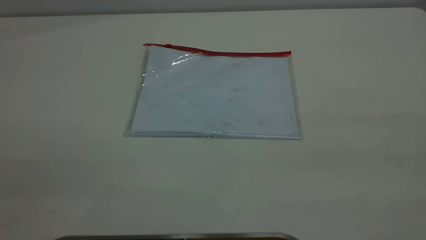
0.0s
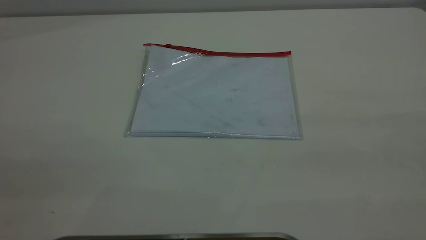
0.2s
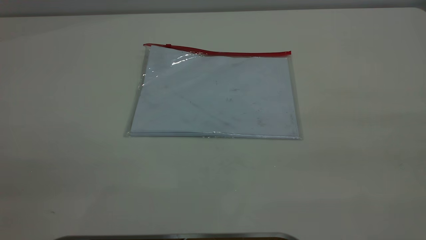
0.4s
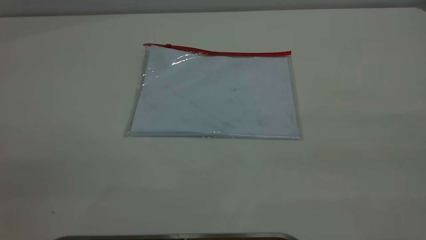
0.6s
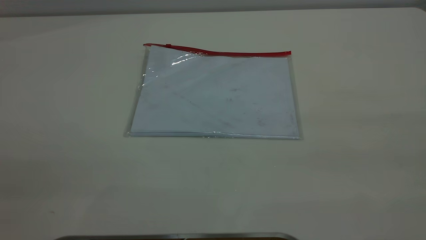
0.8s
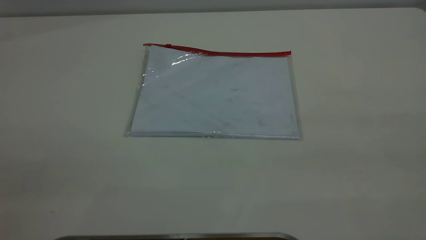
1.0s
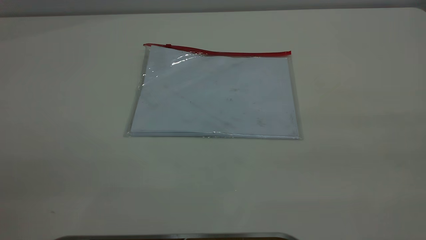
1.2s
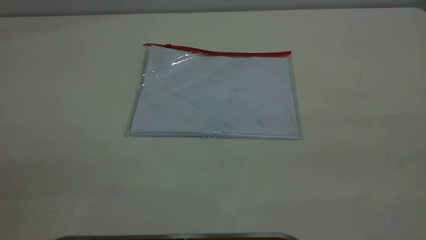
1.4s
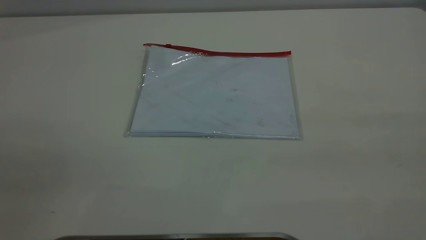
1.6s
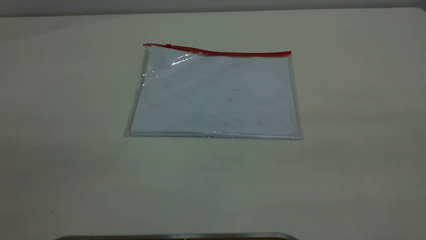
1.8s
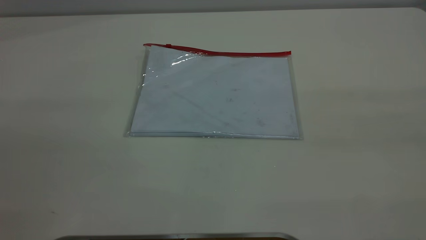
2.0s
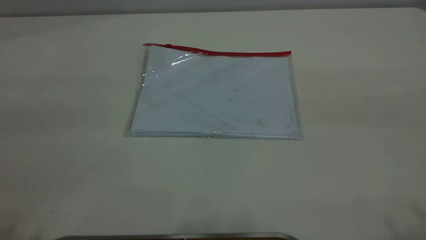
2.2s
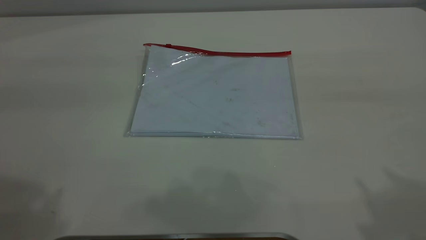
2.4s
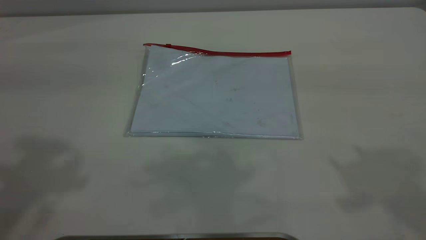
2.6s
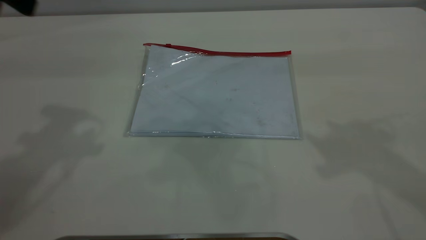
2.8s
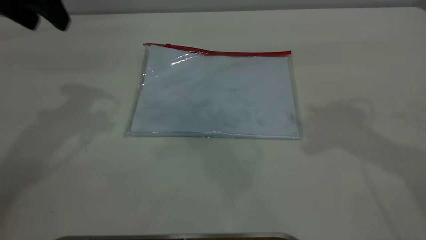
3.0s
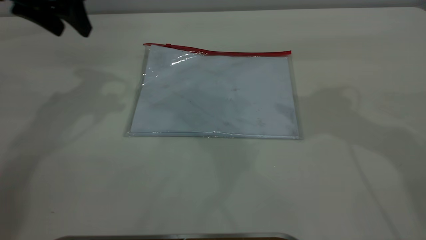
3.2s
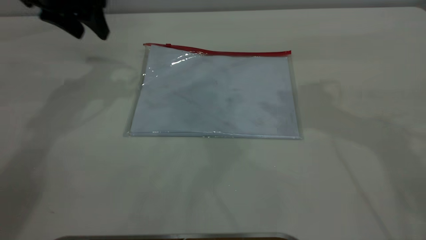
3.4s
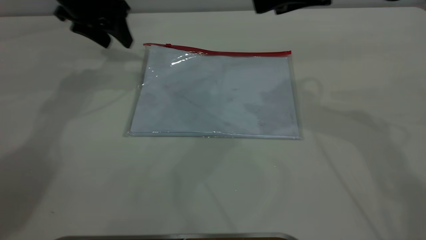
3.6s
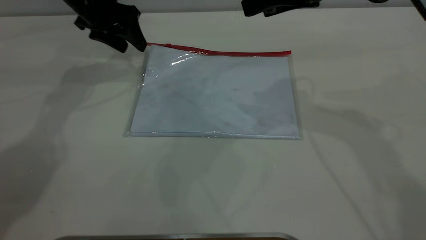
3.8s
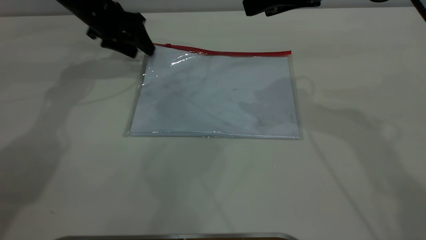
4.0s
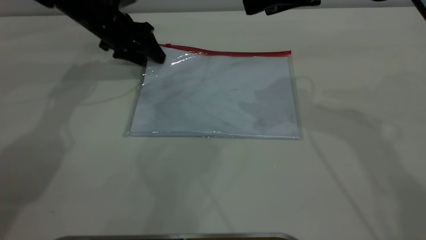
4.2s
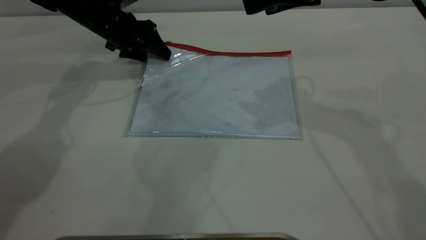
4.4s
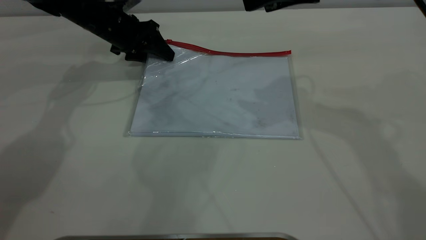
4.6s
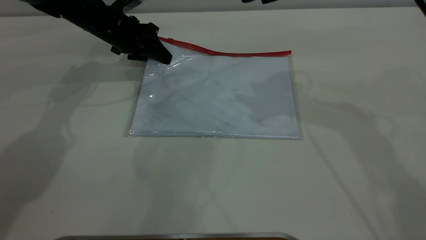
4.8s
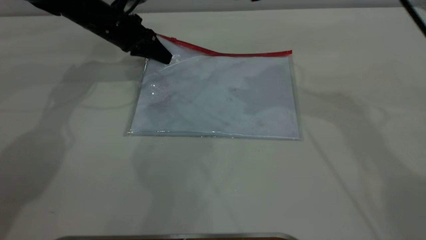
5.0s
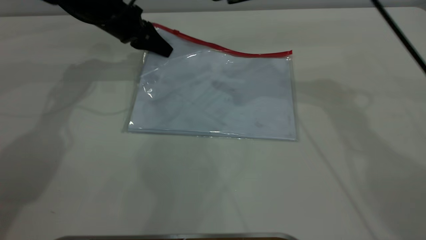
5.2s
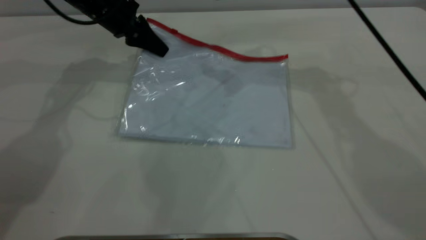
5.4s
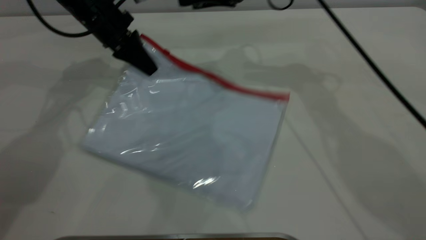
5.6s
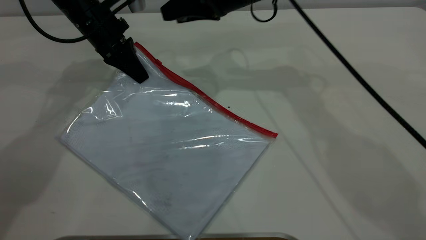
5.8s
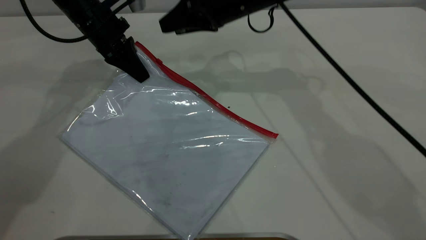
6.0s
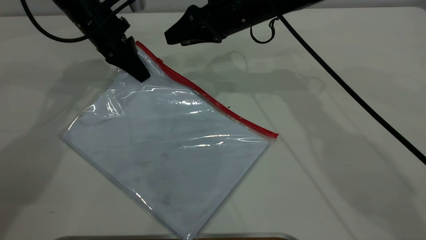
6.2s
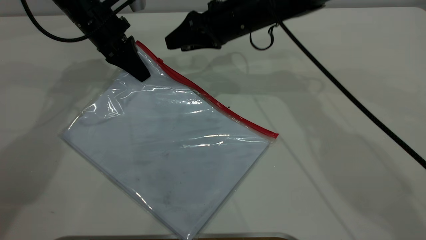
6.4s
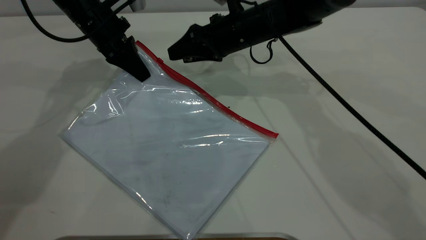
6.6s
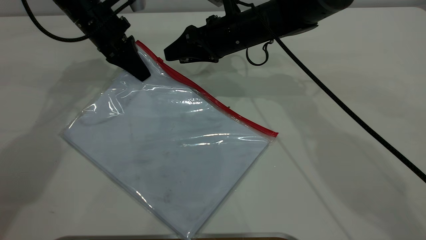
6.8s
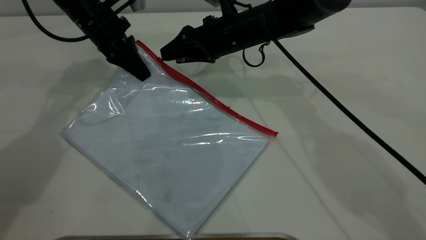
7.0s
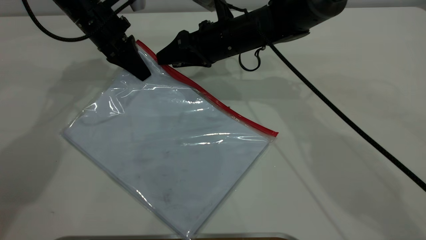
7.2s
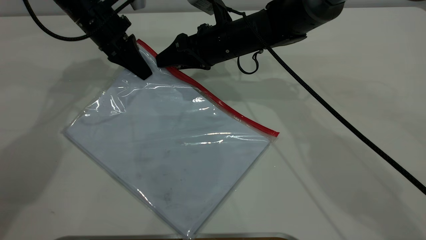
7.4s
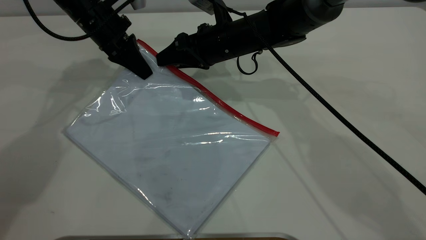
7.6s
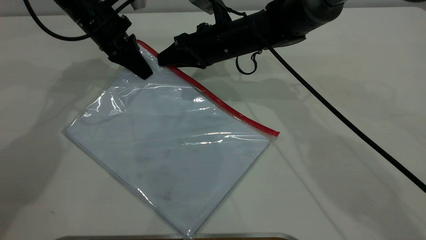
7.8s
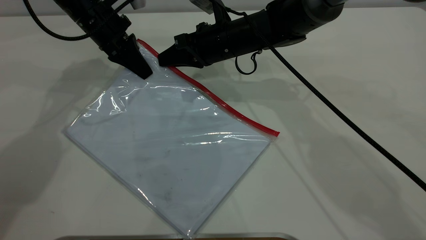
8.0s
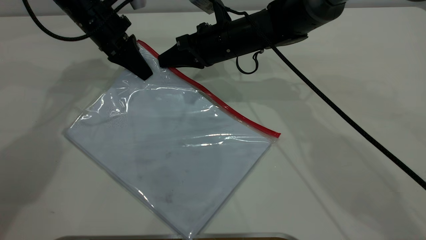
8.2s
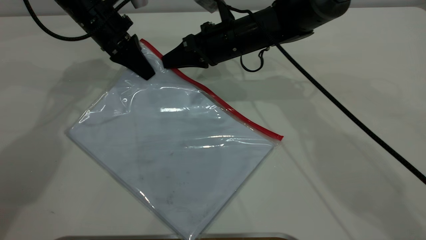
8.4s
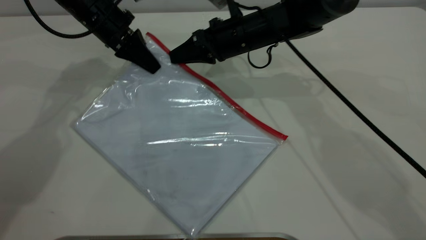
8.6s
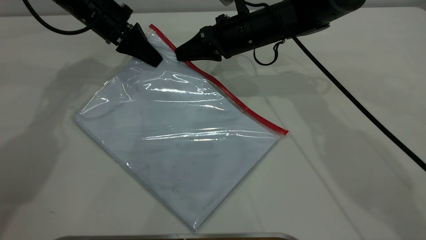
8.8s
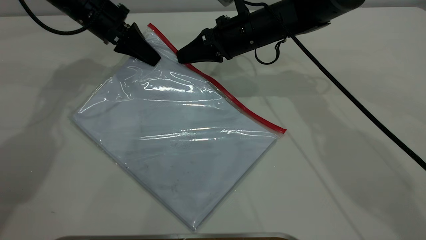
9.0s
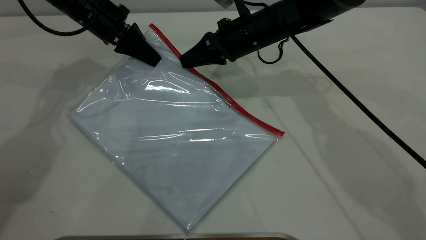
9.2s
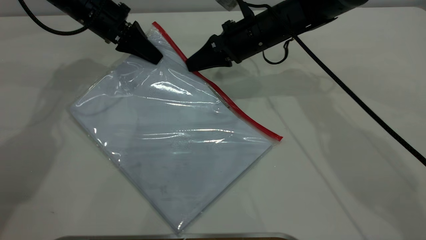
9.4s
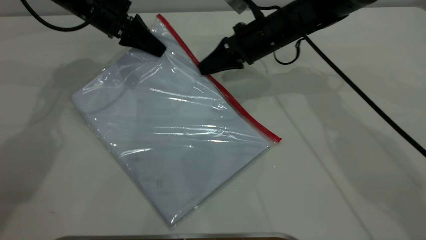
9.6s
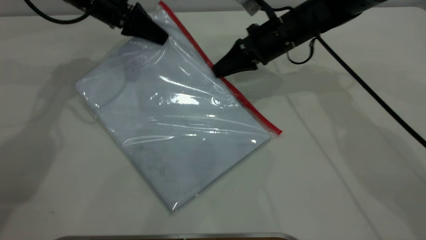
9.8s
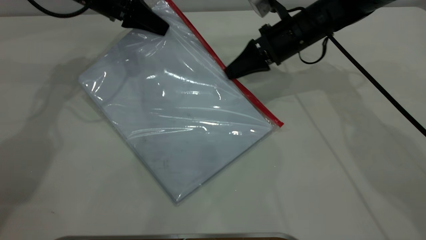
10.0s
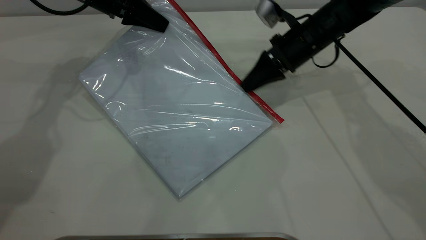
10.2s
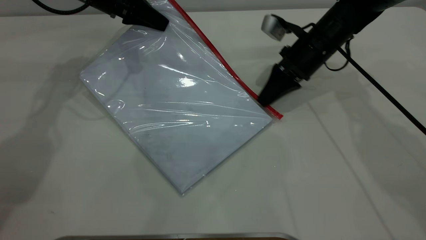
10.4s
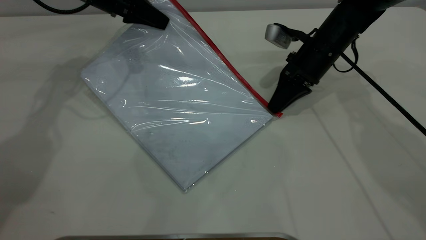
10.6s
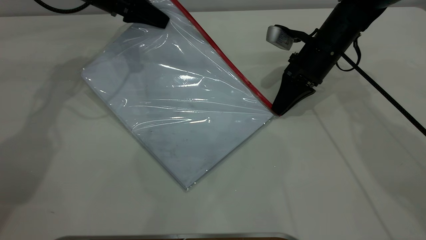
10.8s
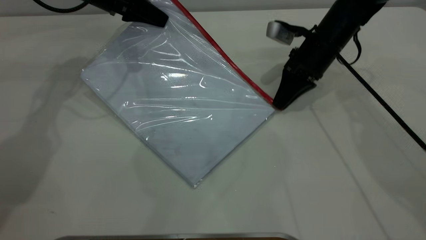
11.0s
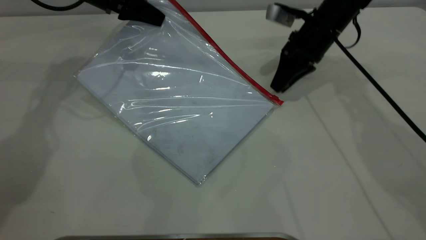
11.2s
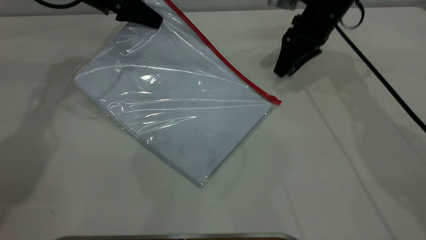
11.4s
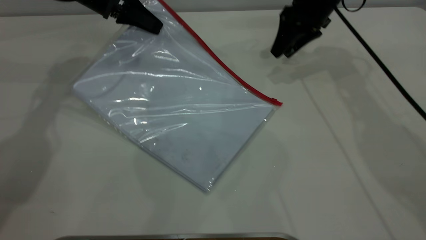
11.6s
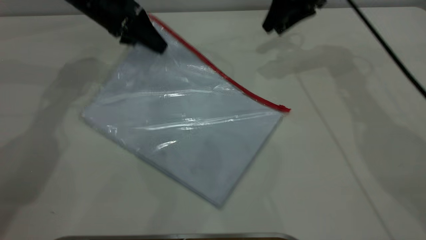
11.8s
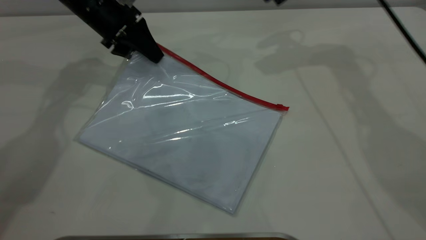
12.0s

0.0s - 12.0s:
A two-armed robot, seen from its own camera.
Step, 0.0s - 5.0s: Pick up the transparent plastic bag with the left gripper.
Step, 5.2s - 11.2s: Pulling up the zipper on the transparent plastic bag with the right gripper to close it.
1.6s - 3.0s: The left gripper is displaced forward by some 35 cm.
3.0s - 4.4s: The right gripper shifts roughly 10 cm to the left, downward and forward; the left gripper shifts about 25 cm downward and forward.
4.4s - 6.0s: The right gripper moves to the left, downward and forward, approximately 20 cm. The left gripper closes its fingers.
6.0s - 7.6s: The right gripper is displaced downward by some 5 cm.
7.6s - 9.0s: The right gripper closes.
9.0s - 10.4s: The right gripper travels to the right by some 10 cm.
10.4s - 12.0s: The right gripper travels upward by approximately 20 cm, and opens. The left gripper opens its fingers.

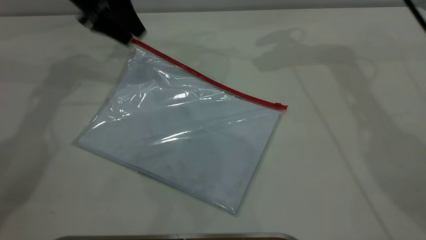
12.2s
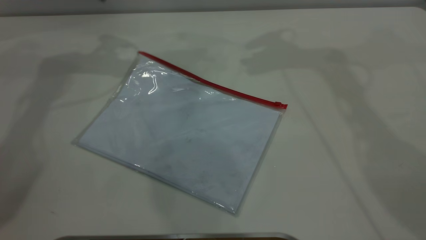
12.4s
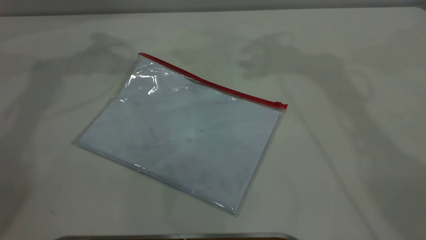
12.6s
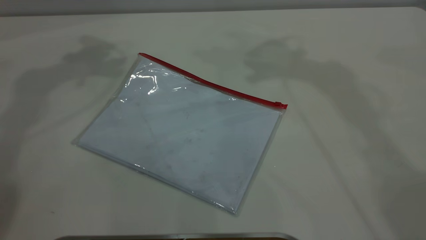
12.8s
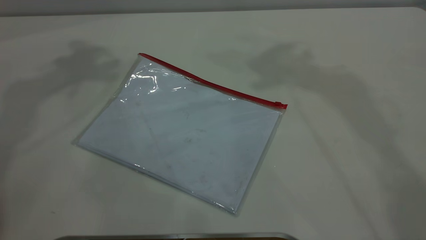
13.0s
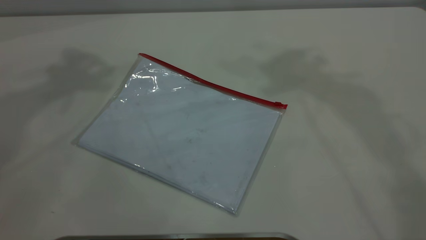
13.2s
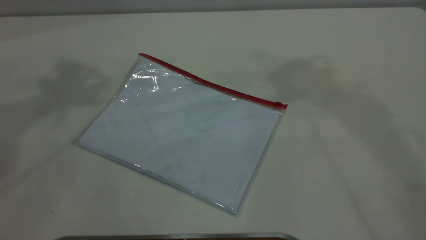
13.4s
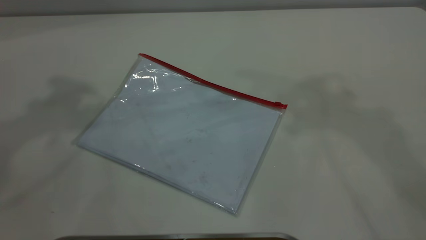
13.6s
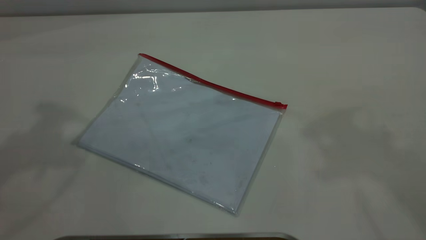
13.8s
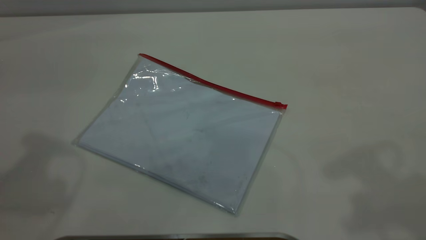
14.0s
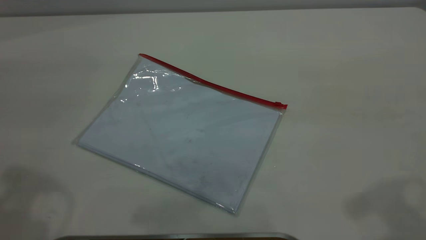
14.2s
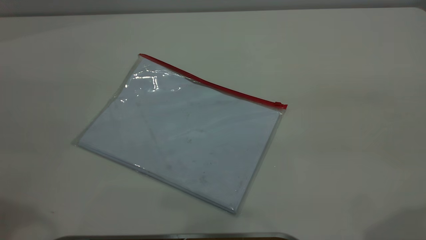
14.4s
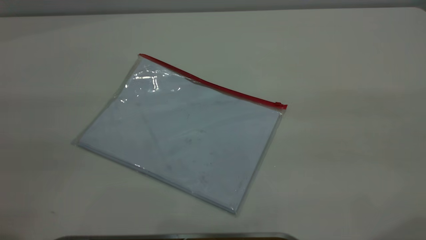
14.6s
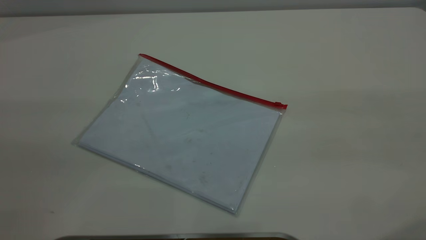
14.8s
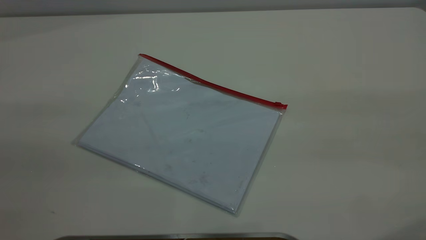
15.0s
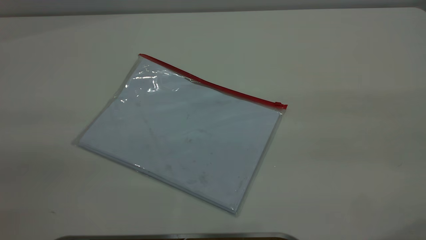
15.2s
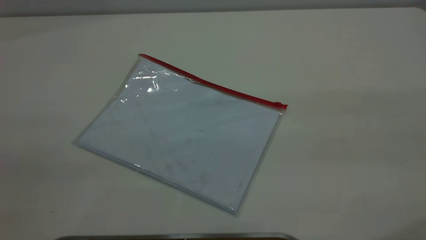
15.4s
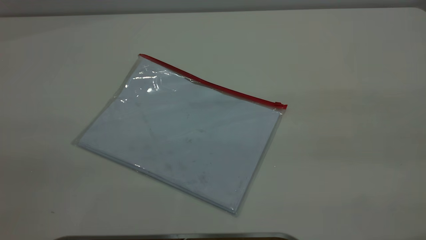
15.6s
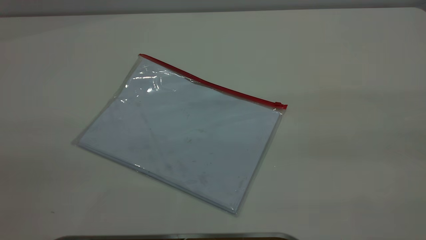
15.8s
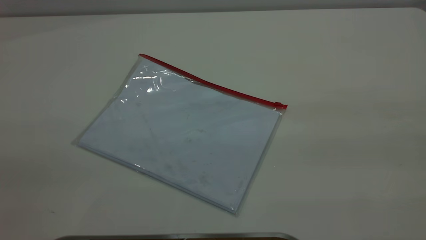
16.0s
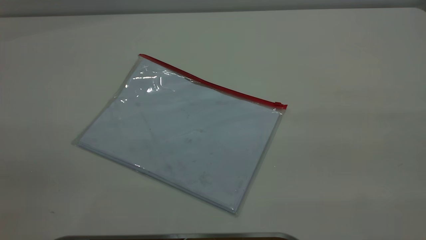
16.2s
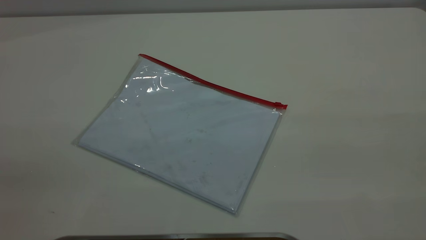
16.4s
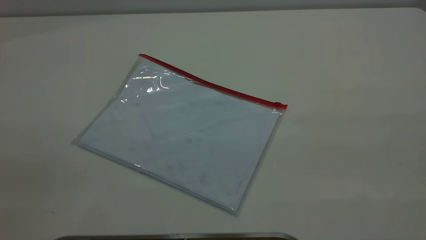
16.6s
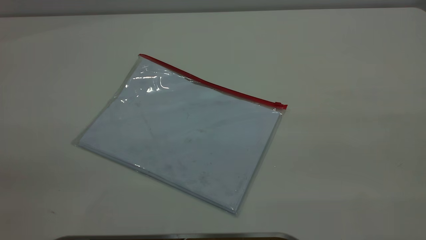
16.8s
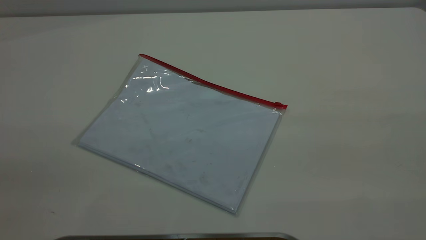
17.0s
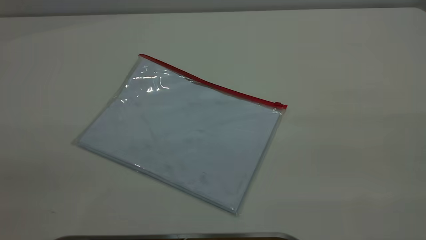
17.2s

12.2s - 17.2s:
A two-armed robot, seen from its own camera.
12.2s - 13.8s: The right gripper travels backward and upward by about 30 cm. The left gripper is displaced upward and backward by approximately 35 cm.
